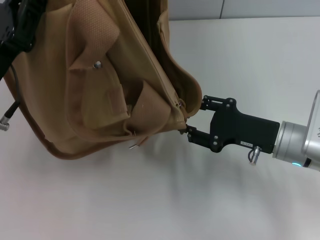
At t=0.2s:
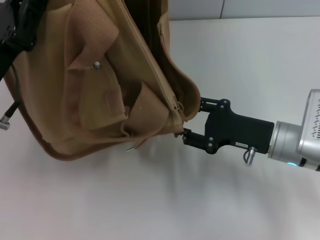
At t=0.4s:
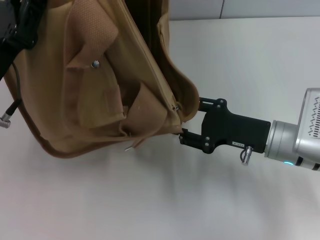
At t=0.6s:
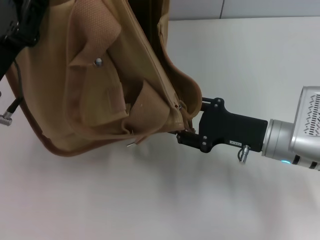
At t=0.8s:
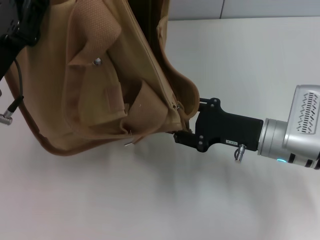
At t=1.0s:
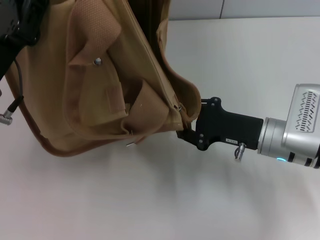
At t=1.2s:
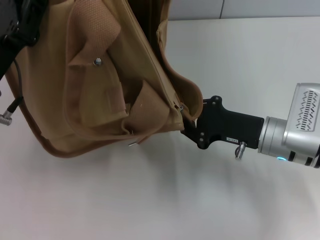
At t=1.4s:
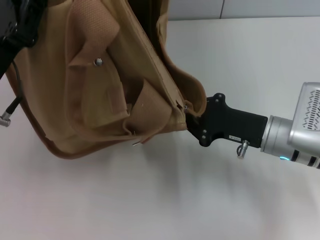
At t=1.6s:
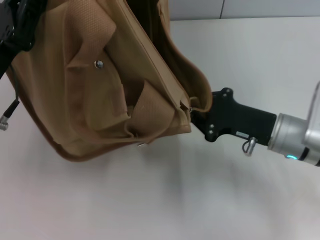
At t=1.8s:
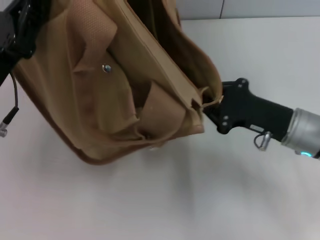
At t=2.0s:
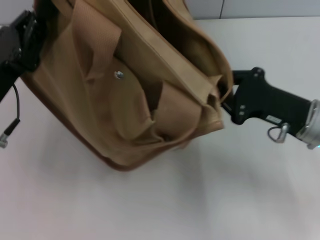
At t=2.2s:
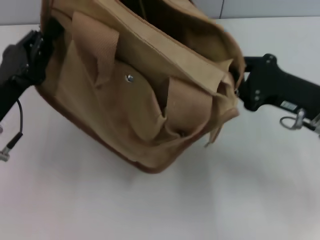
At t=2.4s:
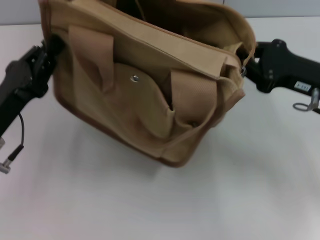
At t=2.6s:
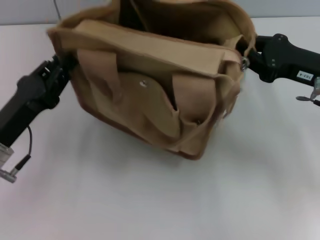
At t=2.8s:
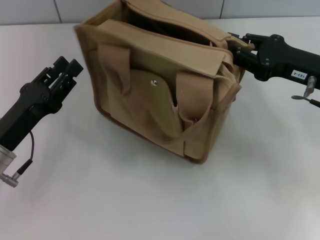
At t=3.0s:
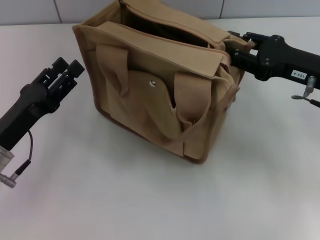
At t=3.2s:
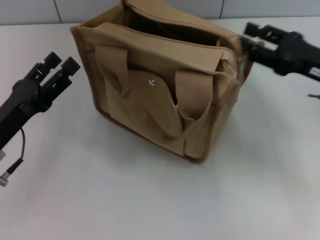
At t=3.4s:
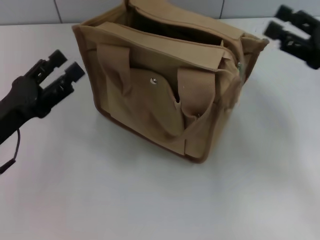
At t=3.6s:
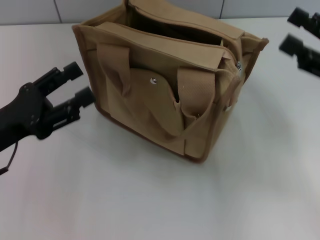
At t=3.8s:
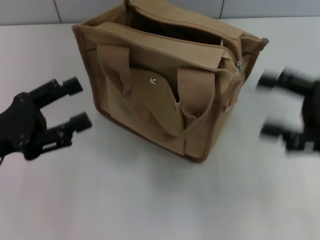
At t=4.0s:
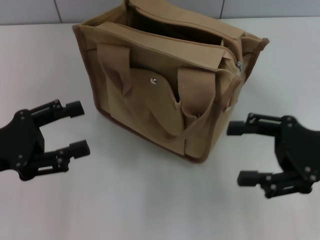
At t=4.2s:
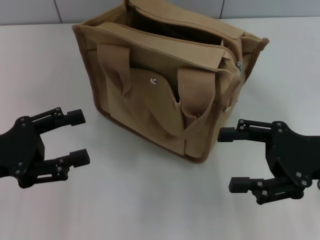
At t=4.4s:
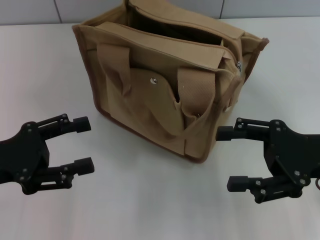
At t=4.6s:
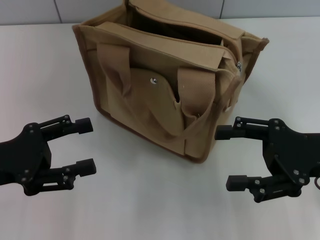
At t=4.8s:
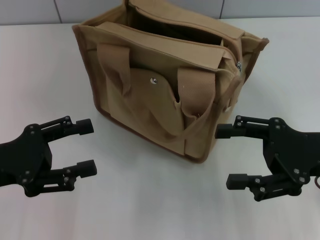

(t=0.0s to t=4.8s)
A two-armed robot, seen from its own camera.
Step, t=0.0s - t=2.6s: Grab the bag with your left hand.
t=0.0s - t=1.6s: The right gripper closes up.
t=1.6s - t=3.2s: The right gripper shifts approximately 10 cm to the right and upward; the left gripper travels downward by some 5 cm, and opens.
t=3.2s - t=4.8s: The left gripper shifts by some 5 cm. The right gripper is displaced backward by roughly 5 cm, and opens its fingers.

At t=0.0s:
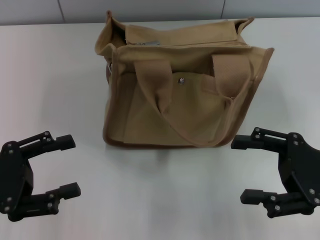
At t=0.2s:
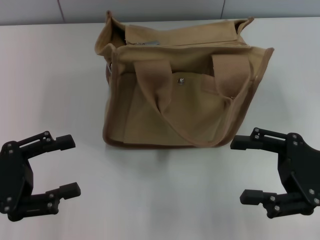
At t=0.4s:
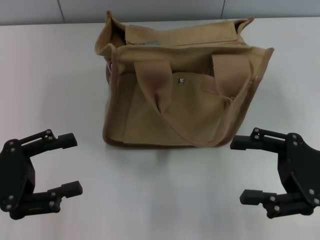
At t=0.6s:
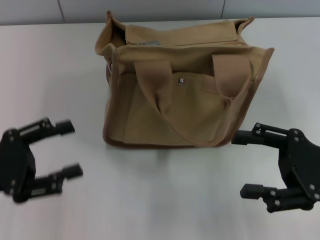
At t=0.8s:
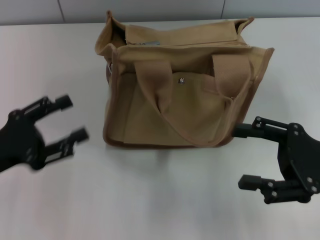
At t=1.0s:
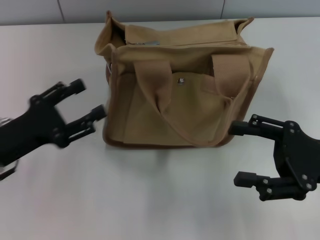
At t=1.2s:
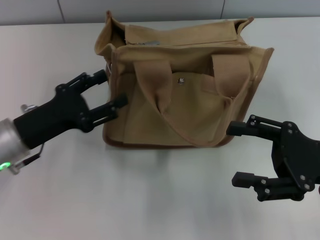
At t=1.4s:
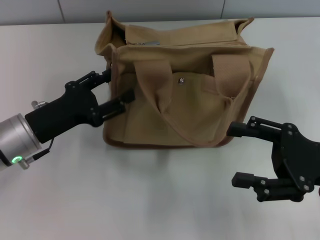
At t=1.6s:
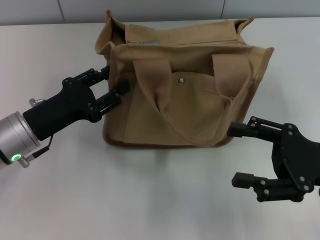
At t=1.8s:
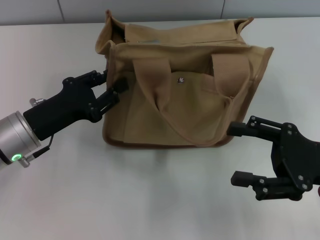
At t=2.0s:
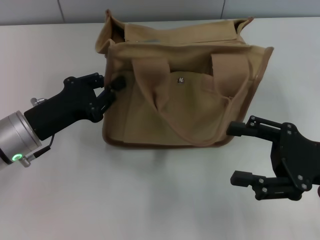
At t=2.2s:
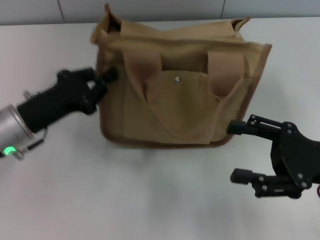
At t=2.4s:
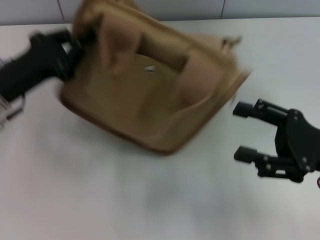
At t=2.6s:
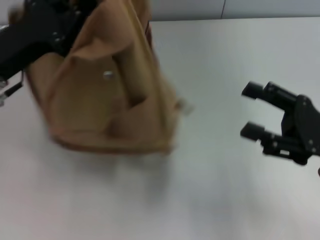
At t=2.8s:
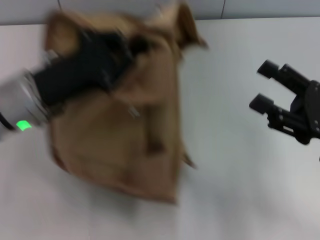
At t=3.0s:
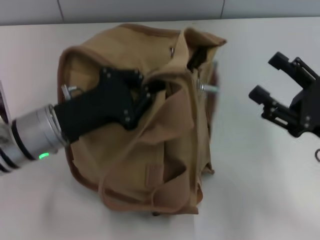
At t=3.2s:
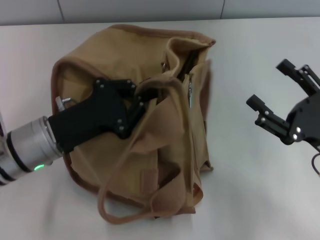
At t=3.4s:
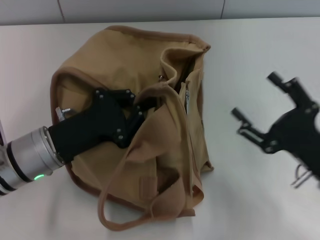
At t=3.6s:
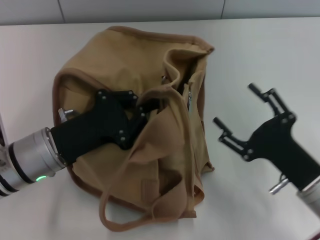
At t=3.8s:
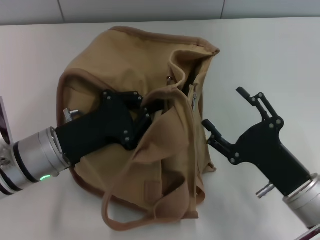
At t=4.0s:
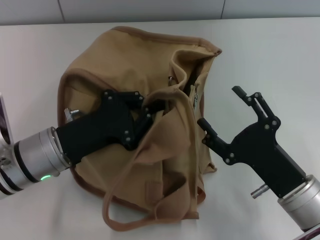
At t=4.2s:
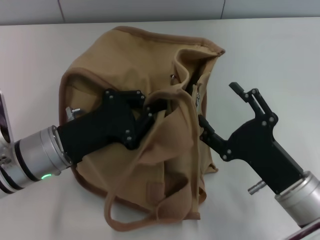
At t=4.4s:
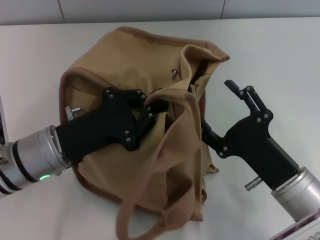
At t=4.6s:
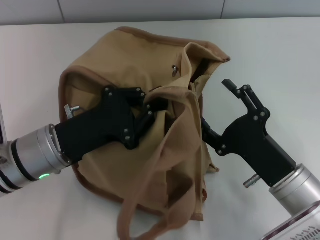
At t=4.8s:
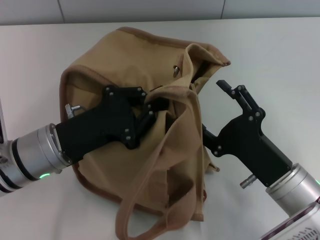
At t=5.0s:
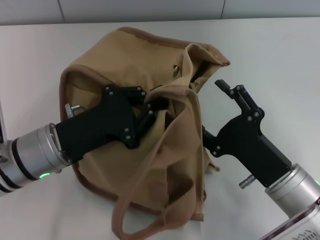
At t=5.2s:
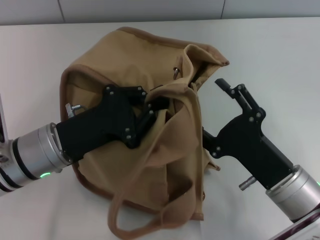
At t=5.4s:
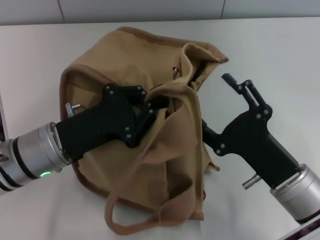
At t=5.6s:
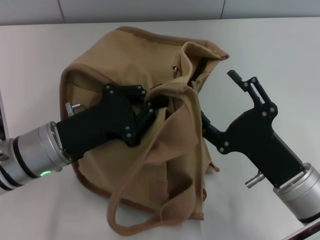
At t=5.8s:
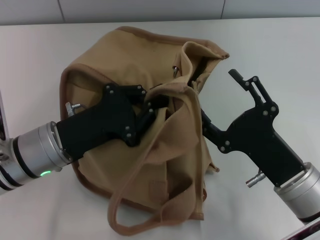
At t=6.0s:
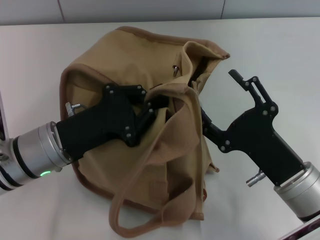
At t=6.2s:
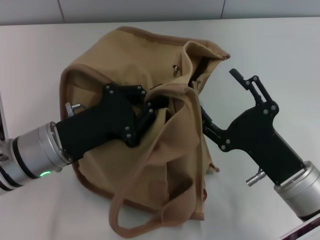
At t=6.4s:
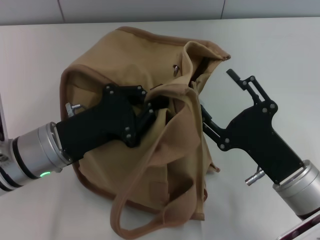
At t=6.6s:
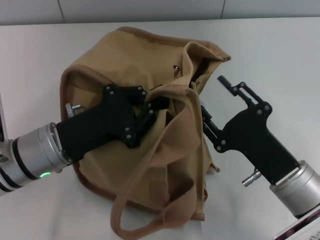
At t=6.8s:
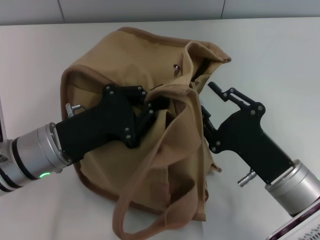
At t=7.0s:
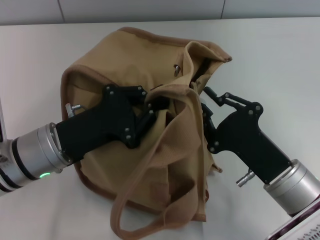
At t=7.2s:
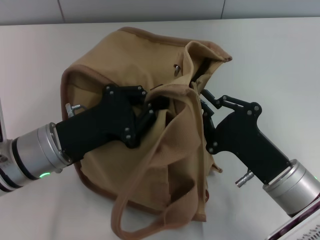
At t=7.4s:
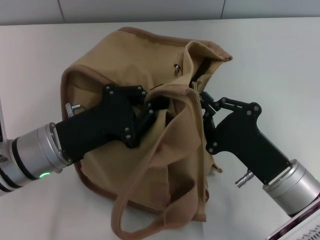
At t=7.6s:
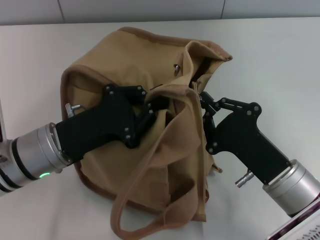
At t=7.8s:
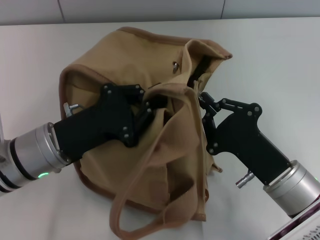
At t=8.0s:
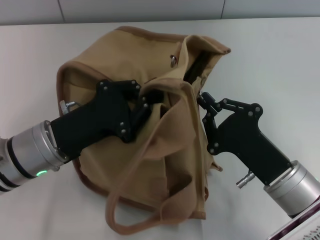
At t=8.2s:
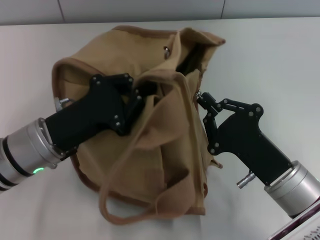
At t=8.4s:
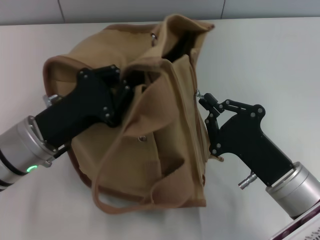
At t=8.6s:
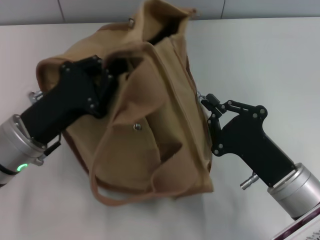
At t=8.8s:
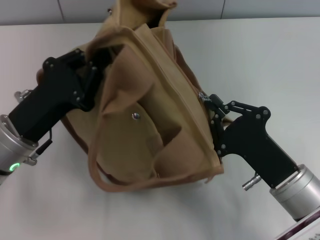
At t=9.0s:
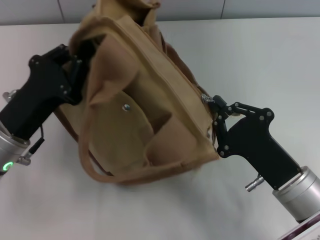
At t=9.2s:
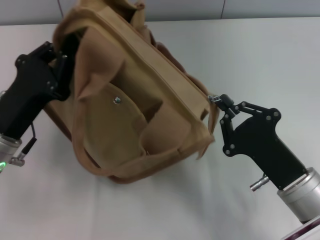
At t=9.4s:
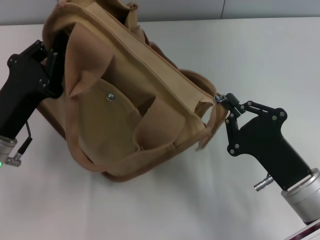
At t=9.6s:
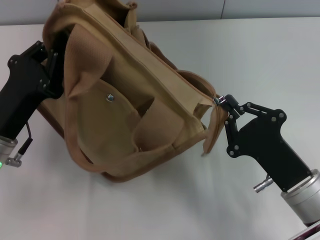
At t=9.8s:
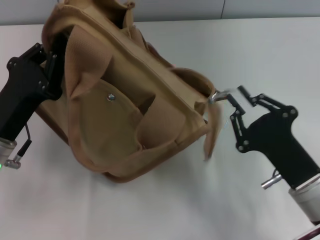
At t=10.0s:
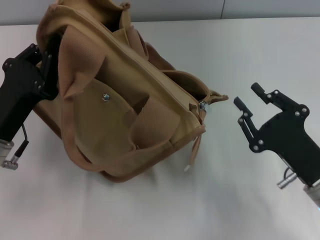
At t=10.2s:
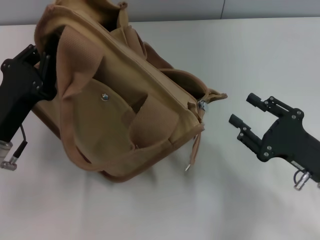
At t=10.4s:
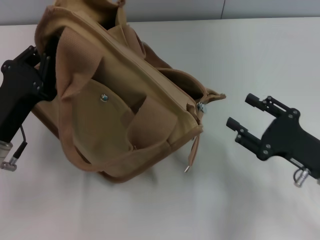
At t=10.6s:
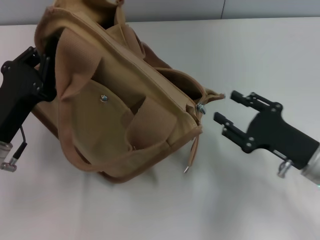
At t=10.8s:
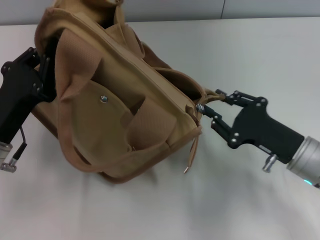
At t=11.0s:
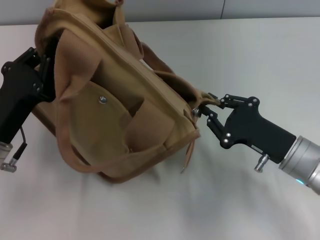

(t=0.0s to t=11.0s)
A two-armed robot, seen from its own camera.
Step, t=0.0s - t=10.2s: Pull open the zipper with your right hand.
t=0.0s - t=1.6s: The left gripper goes some 10 cm forward and to the right.
t=1.6s - t=3.2s: The left gripper travels upward and back again, approximately 10 cm each way, and closes.
t=3.2s - t=4.8s: The right gripper goes approximately 10 cm to the left.
t=4.8s - t=6.2s: The grippers make only small movements.
t=6.2s - t=7.8s: The right gripper closes up.
t=7.8s - t=9.4s: The left gripper moves to the left, approximately 5 cm.
t=9.4s - t=11.0s: The right gripper travels forward by approximately 5 cm, and opens its fingers.

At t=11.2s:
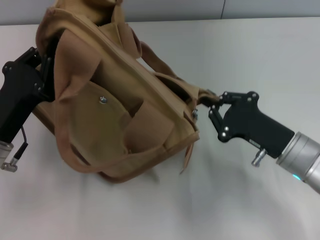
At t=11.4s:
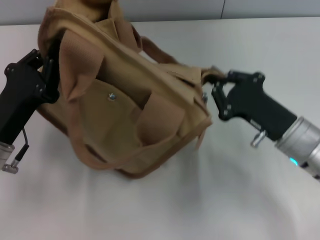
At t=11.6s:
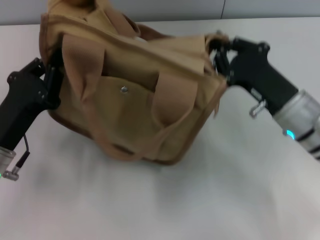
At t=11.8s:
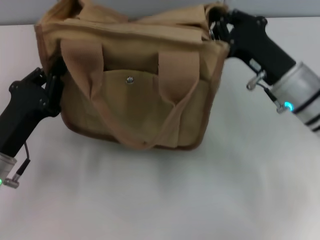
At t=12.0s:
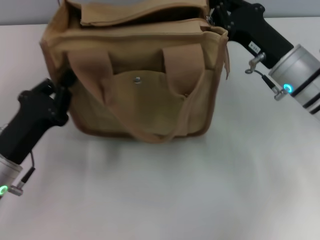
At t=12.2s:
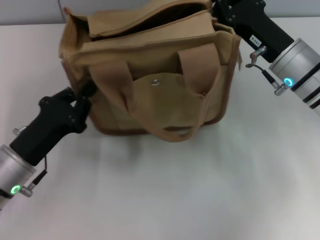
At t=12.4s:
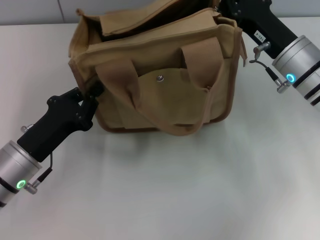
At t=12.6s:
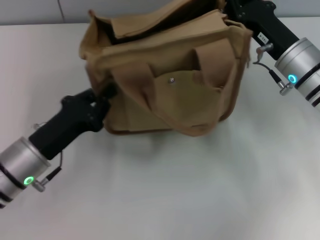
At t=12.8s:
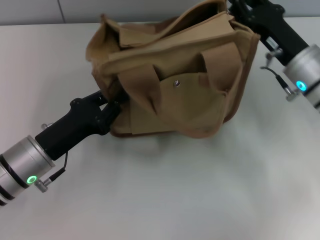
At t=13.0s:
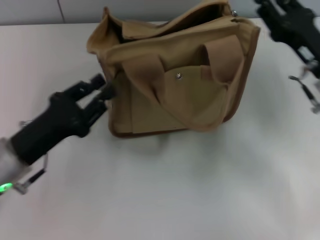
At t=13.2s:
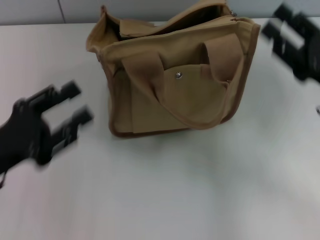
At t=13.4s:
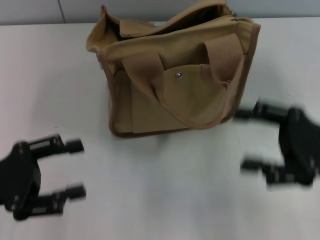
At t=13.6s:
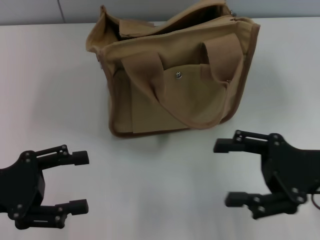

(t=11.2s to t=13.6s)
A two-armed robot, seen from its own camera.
Step, t=11.2s - t=13.0s: Grab the bag with your left hand.
t=11.2s - t=12.4s: The right gripper moves forward and upward, approximately 15 cm.
t=12.4s - t=13.6s: The right gripper shifts some 15 cm backward and to the right, and opens; the left gripper moves to the left and upward, some 10 cm, and opens up.

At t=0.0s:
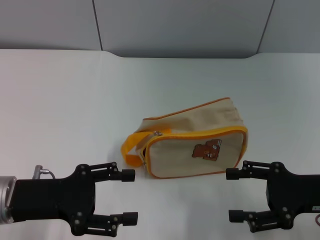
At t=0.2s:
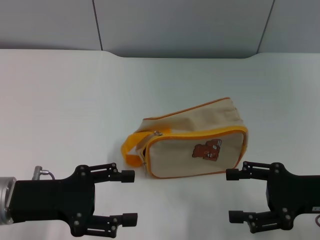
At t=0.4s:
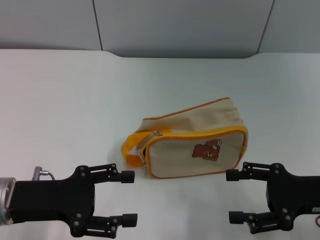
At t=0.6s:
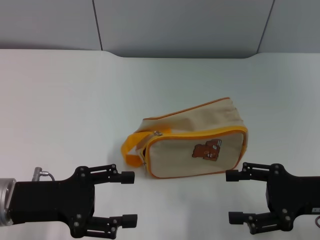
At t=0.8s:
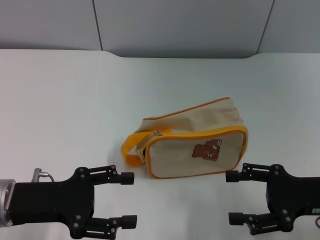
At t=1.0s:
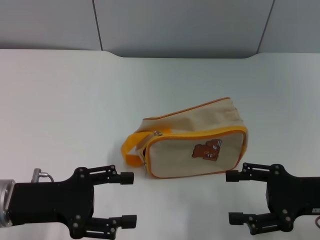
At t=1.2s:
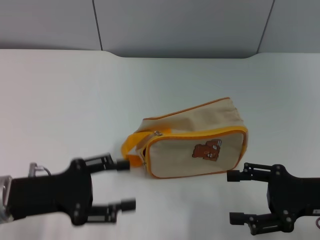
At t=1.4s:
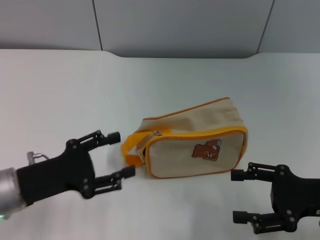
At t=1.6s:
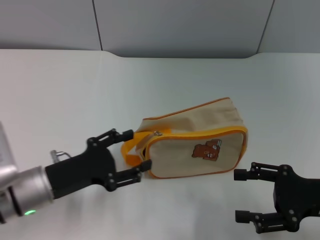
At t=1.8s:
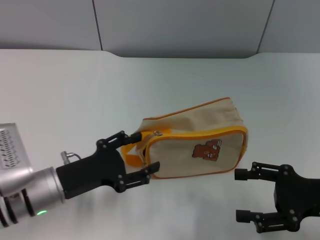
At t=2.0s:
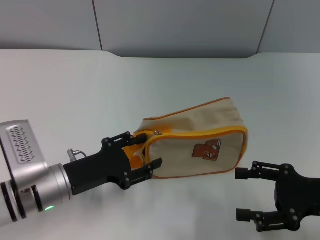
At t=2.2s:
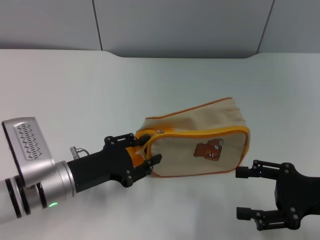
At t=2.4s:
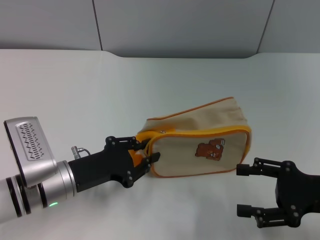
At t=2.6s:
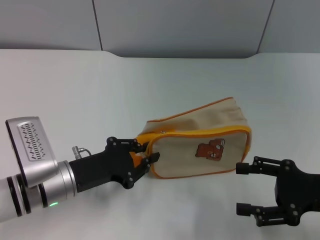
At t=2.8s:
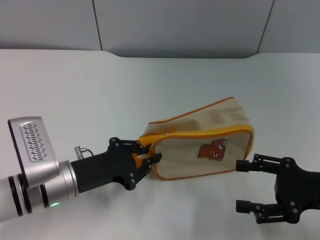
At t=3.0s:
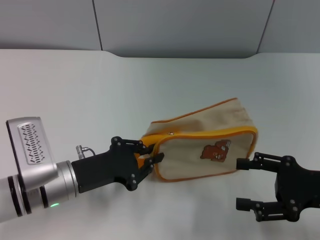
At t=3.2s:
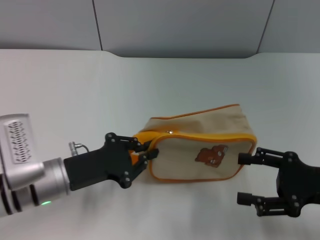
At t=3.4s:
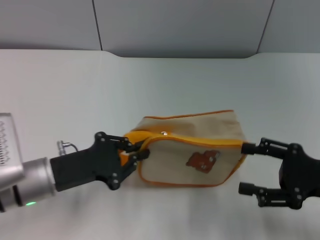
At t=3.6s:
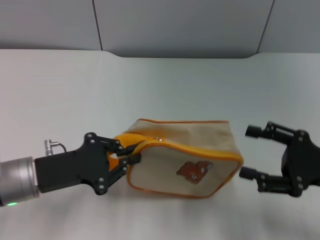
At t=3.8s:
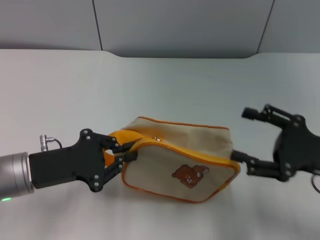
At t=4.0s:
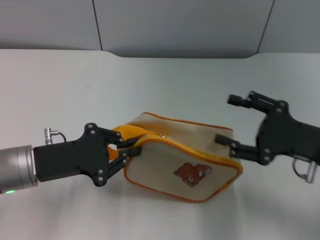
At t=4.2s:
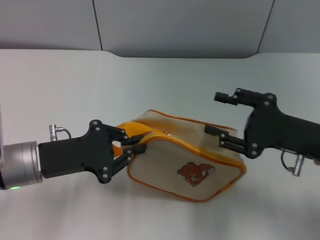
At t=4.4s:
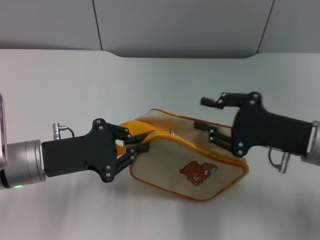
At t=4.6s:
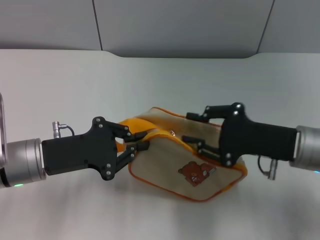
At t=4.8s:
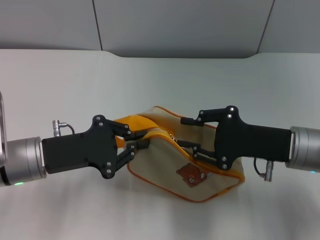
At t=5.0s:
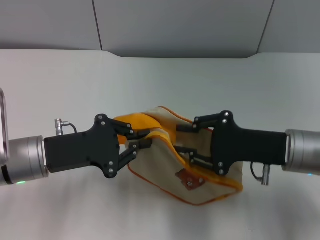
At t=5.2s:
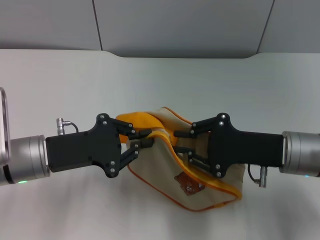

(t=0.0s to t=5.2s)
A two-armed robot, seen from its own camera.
Step, t=0.0s - t=3.8s: Pick up the bag with left gripper.
t=0.0s - t=1.8s: The left gripper is displaced downward by roughly 5 cm.
t=1.8s - t=3.4s: The left gripper closes up.
t=3.4s - t=5.2s: The right gripper is displaced to the left and forward by some 10 cm, and closes.
